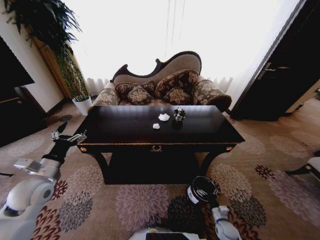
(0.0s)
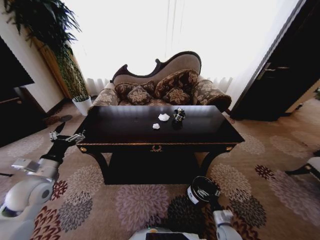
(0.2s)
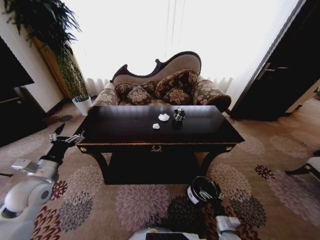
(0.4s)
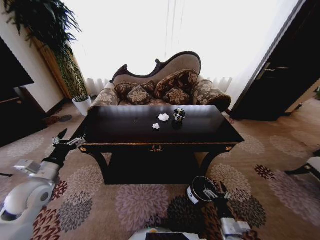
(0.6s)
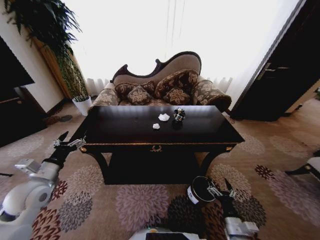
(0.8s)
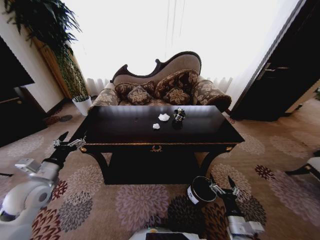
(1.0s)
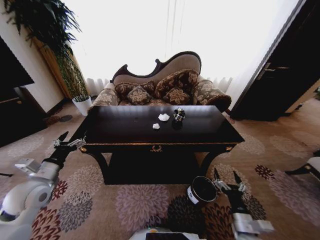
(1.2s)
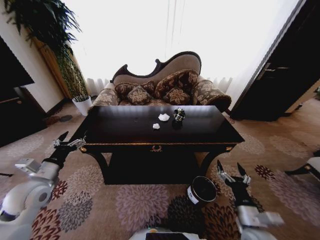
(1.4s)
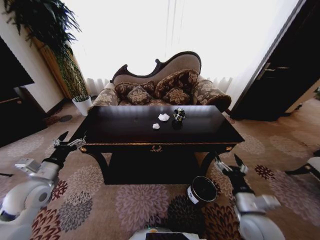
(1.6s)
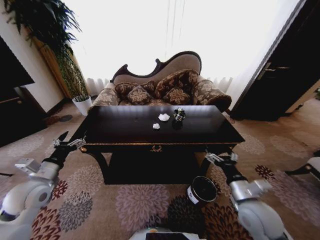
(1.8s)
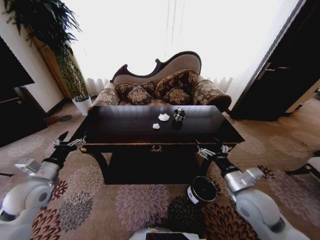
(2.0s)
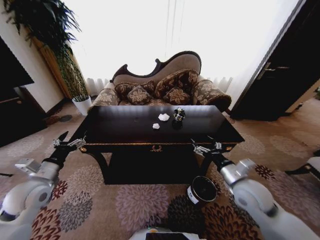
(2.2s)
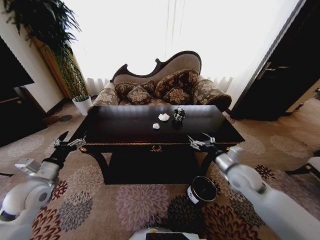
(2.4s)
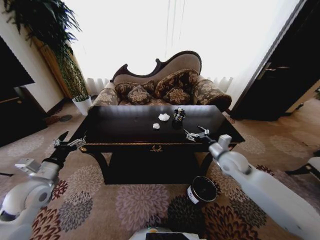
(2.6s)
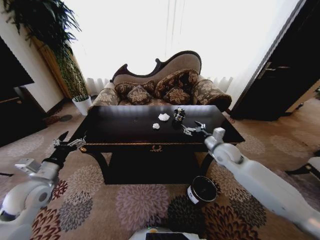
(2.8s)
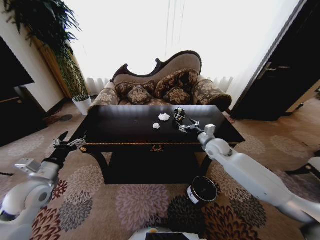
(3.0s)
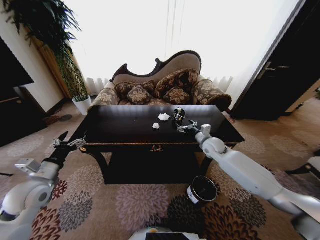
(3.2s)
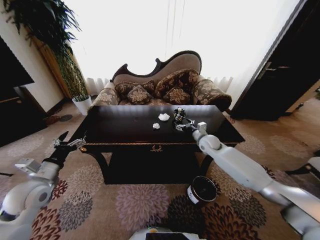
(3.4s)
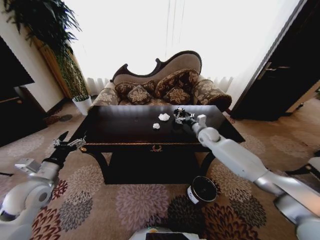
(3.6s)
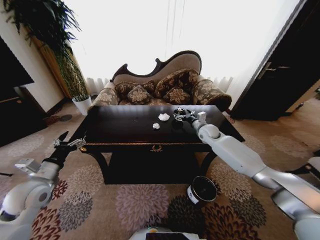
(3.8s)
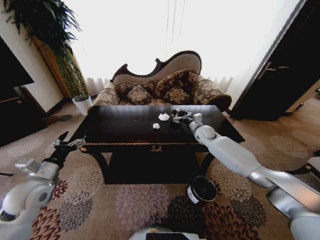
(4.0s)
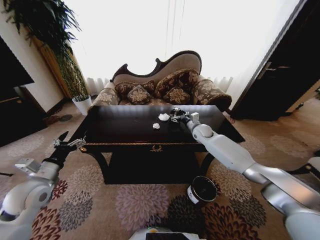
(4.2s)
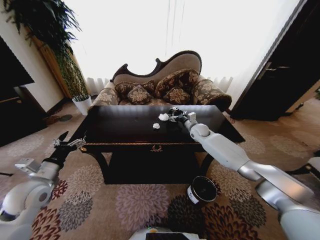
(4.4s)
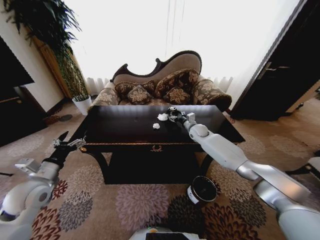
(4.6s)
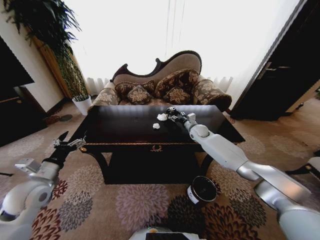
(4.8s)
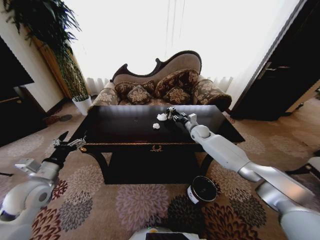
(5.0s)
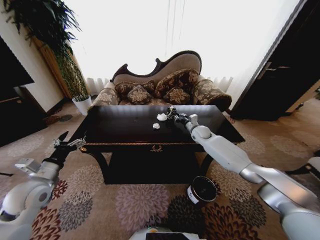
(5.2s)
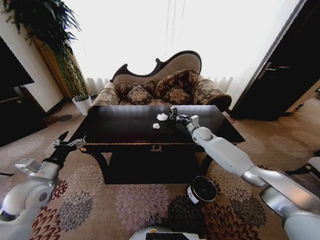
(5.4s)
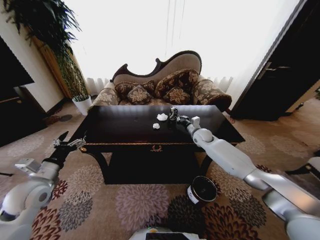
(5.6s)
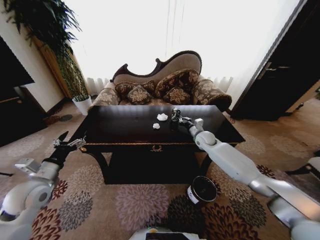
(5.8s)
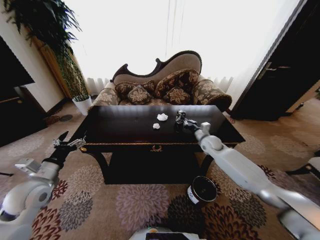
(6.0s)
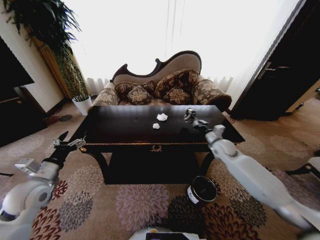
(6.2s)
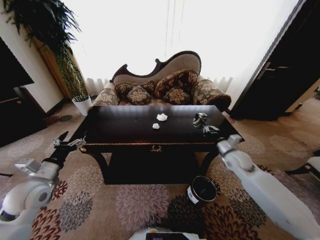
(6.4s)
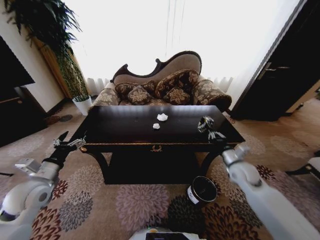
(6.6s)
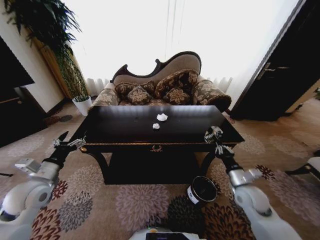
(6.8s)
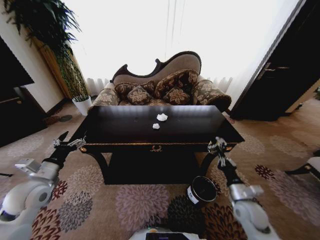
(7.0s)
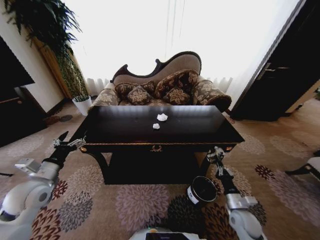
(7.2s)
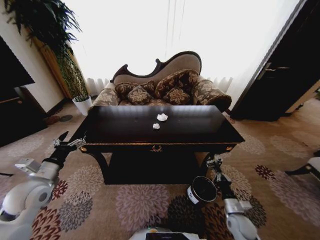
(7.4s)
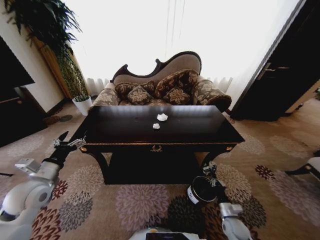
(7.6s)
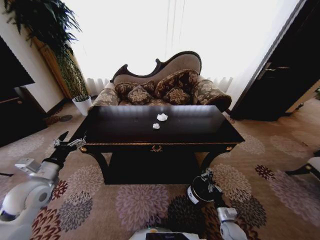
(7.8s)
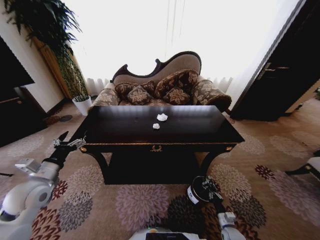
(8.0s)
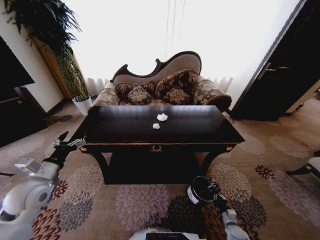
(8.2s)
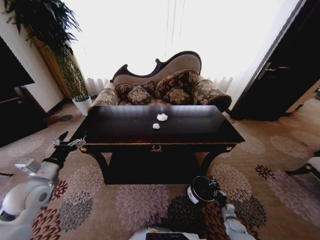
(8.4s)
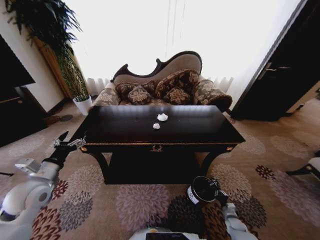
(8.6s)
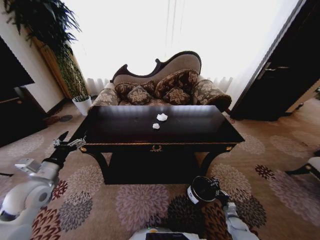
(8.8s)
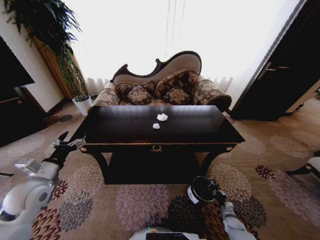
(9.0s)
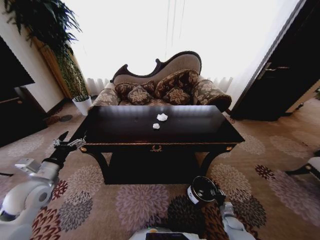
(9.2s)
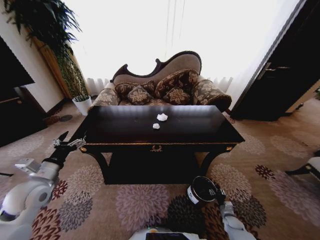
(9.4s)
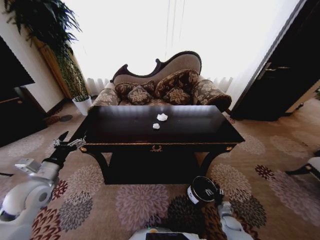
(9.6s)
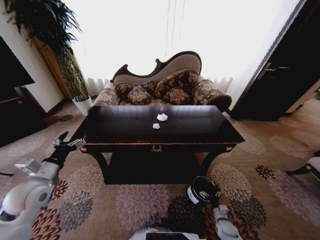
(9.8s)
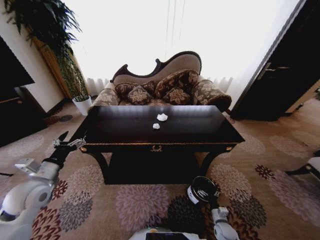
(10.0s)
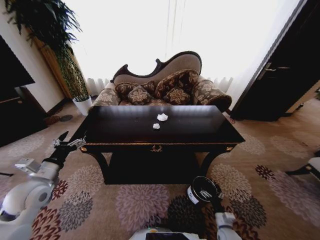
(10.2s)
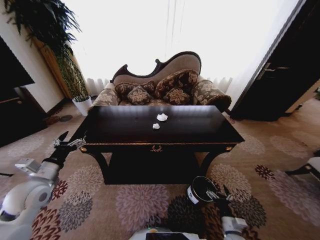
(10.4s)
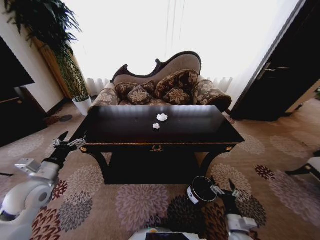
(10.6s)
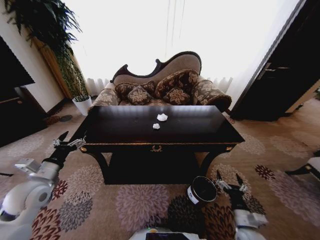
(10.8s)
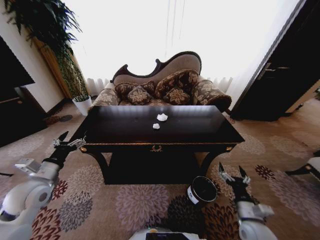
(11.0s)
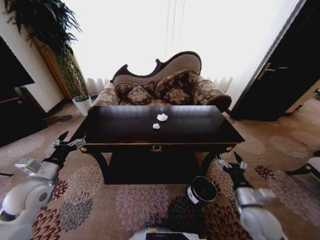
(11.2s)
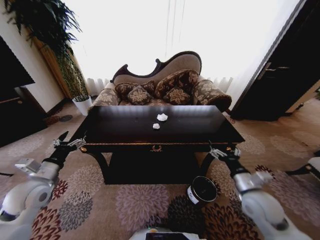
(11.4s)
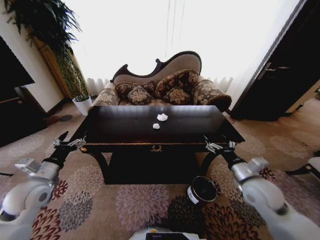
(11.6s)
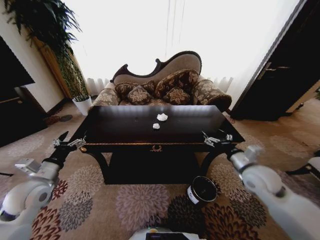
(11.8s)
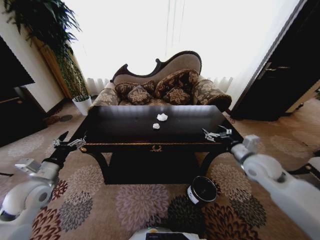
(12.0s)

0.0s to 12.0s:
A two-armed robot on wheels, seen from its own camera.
Task of the whole recording: Move to the front of the table and place the trash on the table into the trash bin.
0.0s to 1.6s: The right gripper moves upward, some 30 cm.
1.6s to 3.0s: The right gripper goes about 30 cm forward.
3.0s to 4.4s: The right gripper moves forward, some 15 cm.
4.4s to 6.0s: The right gripper shifts approximately 10 cm backward, and closes.
6.0s to 7.6s: The right gripper heads backward and downward, covering approximately 40 cm.
7.6s to 9.0s: The right gripper goes some 15 cm downward and to the right.
9.0s to 10.4s: The right gripper goes about 15 cm upward, to the left and backward, and opens up.
10.4s to 12.0s: The right gripper moves upward and forward, roughly 40 cm.

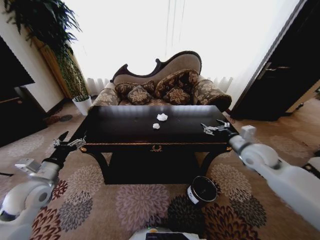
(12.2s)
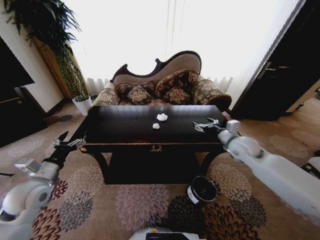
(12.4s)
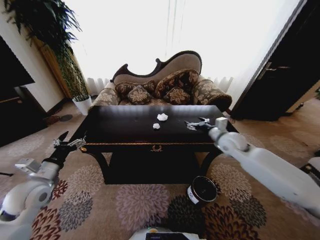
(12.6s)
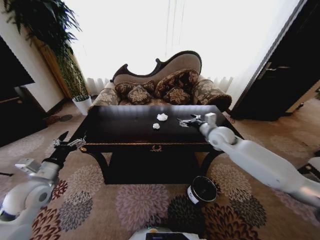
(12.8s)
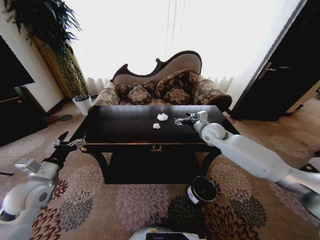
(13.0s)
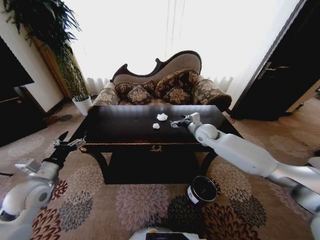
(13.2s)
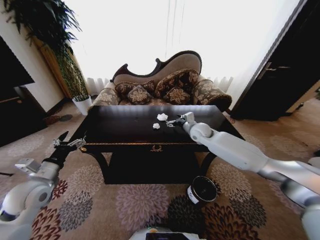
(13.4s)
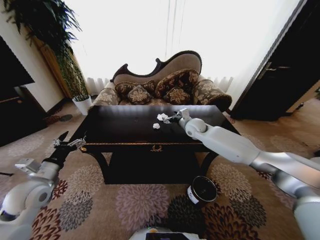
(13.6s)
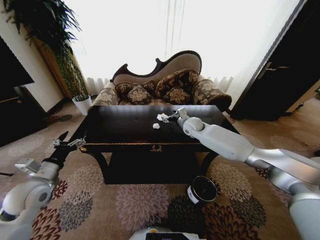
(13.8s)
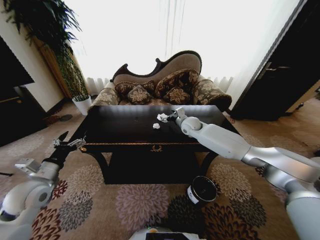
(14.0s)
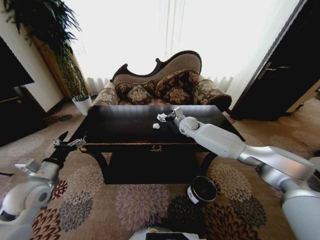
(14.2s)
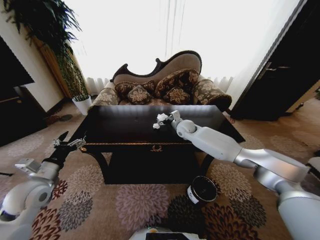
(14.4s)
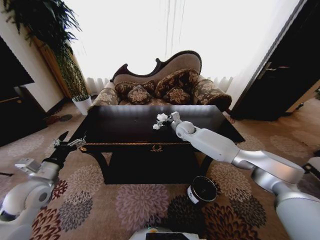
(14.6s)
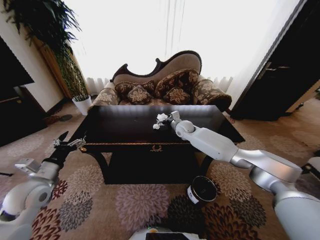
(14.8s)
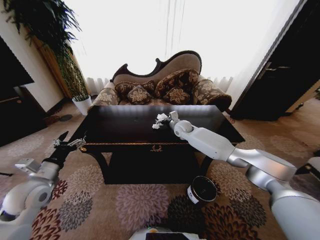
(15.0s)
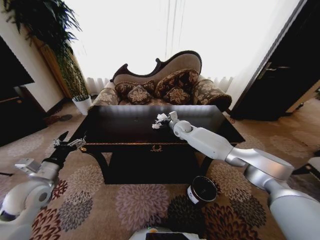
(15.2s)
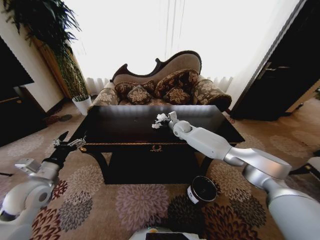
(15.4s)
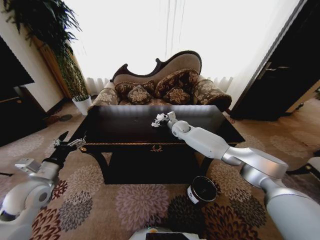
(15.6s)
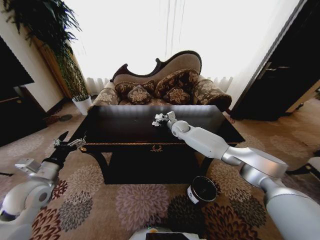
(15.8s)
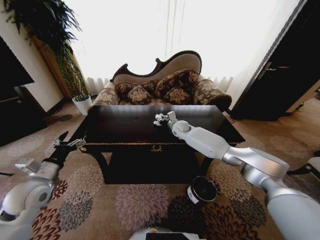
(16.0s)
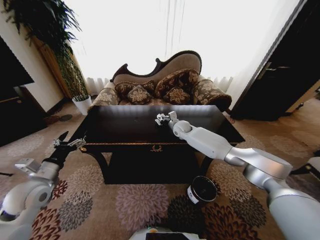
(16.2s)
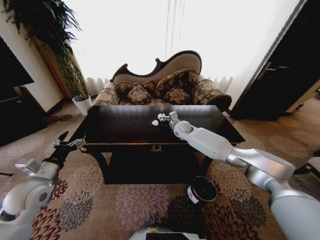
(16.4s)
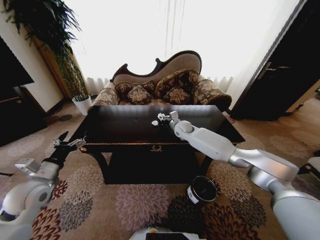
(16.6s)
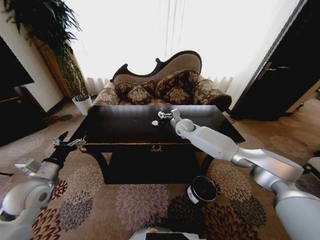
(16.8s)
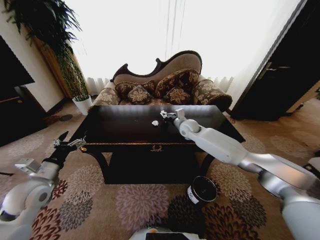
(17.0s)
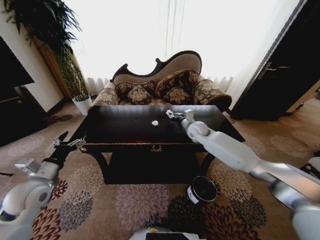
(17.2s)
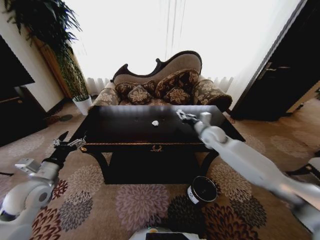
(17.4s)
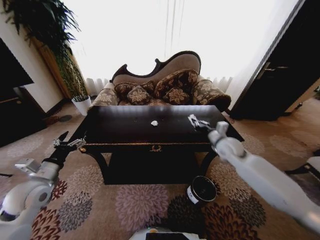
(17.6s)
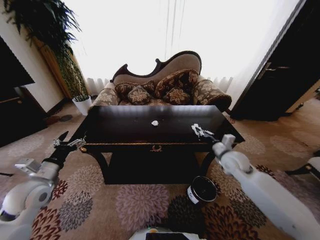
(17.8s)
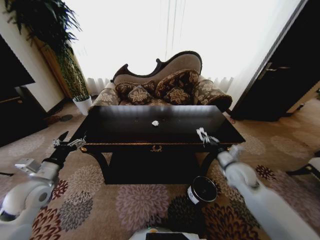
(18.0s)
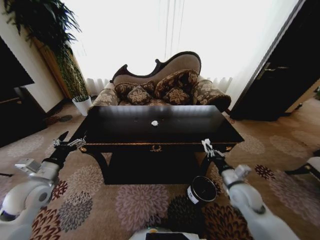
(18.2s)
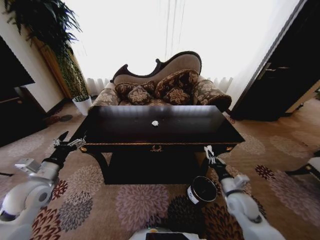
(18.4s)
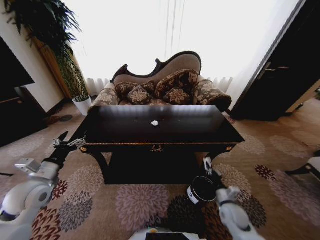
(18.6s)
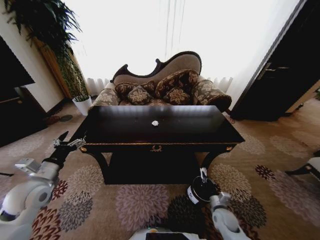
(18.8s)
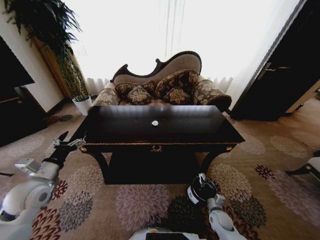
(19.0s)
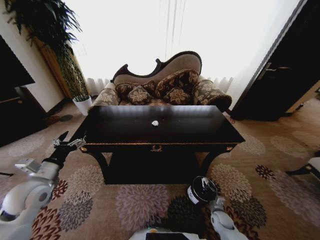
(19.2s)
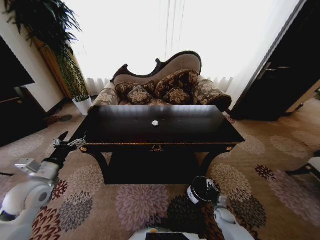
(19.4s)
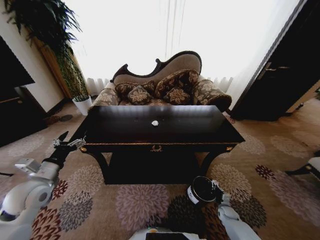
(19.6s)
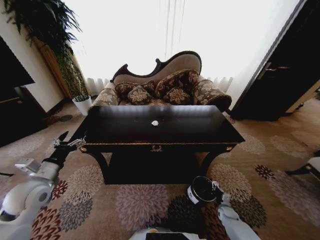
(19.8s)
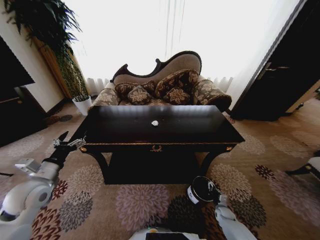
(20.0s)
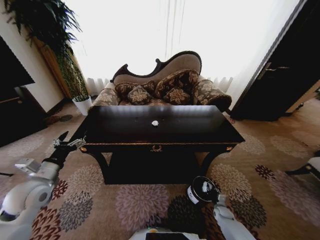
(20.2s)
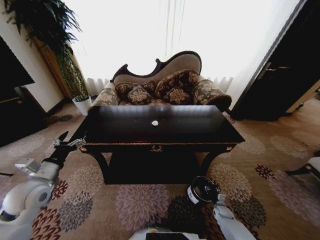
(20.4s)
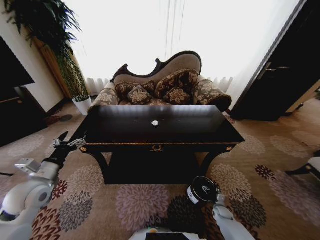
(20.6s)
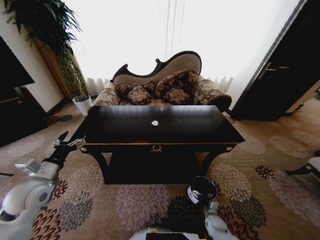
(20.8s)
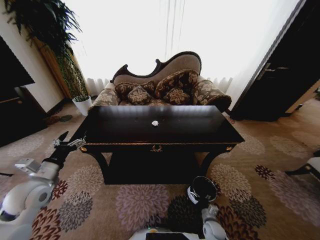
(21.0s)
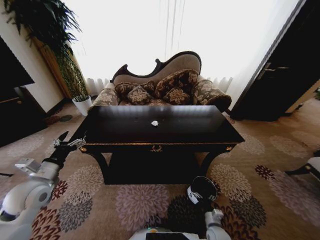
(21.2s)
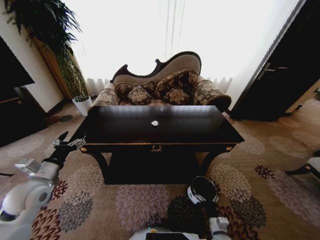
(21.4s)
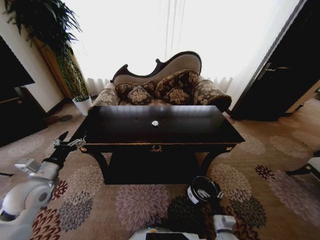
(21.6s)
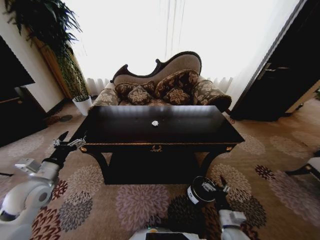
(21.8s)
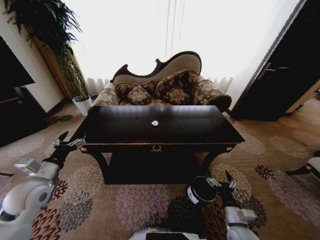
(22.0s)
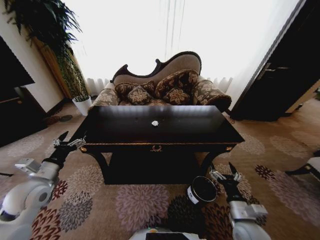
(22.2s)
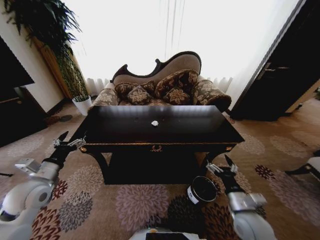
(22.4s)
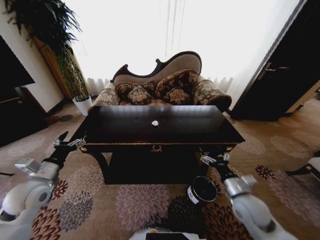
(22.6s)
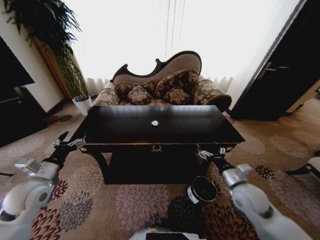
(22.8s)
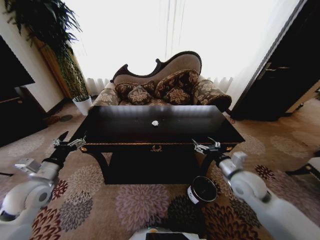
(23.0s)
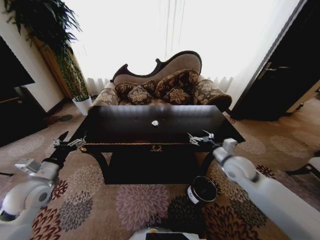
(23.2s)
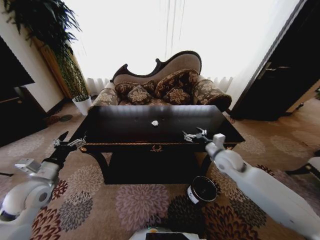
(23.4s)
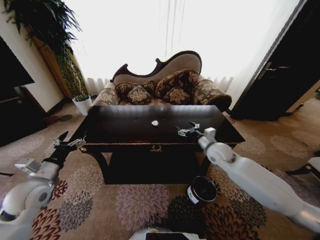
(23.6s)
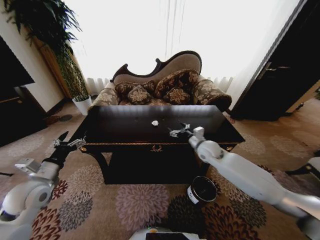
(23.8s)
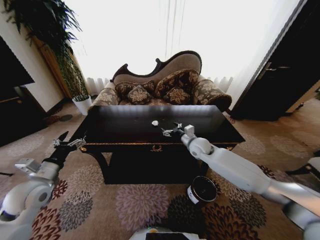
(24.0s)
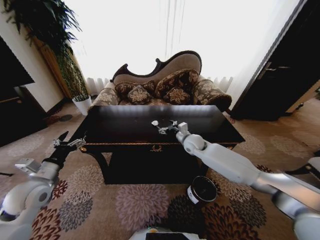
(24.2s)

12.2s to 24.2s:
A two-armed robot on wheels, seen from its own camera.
Task of the whole recording: Move to the front of the table and place the trash on the table into the trash bin.
12.2s to 13.8s: The right gripper shifts about 25 cm forward and to the left.
13.8s to 15.2s: The right gripper shifts by some 5 cm.
15.2s to 16.6s: The right gripper closes its fingers.
16.6s to 18.2s: The right gripper shifts some 35 cm backward and to the right.
18.2s to 19.8s: The right gripper goes approximately 30 cm downward.
19.8s to 21.2s: The right gripper moves to the left, backward and upward, about 20 cm, and opens.
21.2s to 22.6s: The right gripper goes some 25 cm upward.
22.6s to 24.2s: The right gripper shifts roughly 30 cm forward and to the left.
